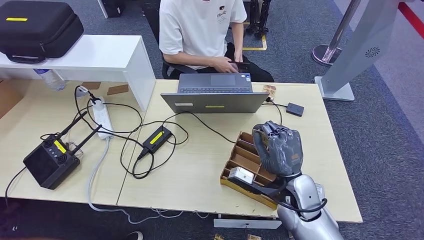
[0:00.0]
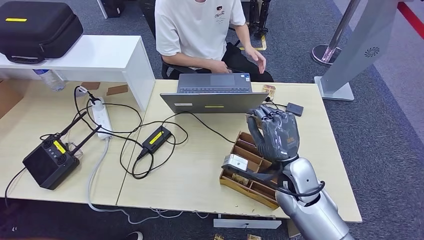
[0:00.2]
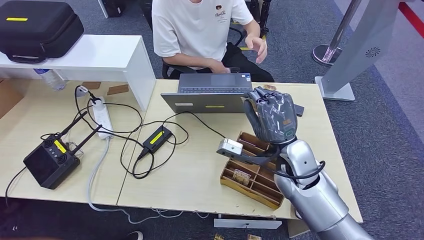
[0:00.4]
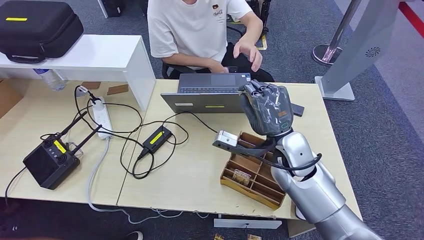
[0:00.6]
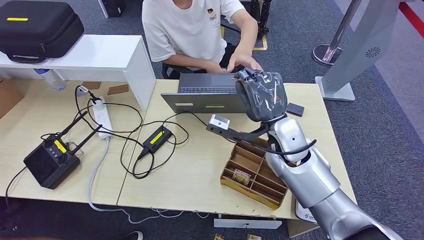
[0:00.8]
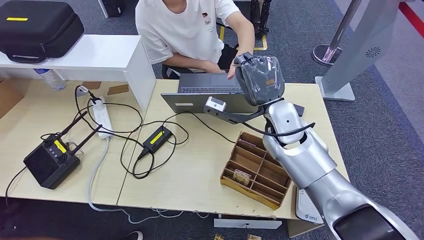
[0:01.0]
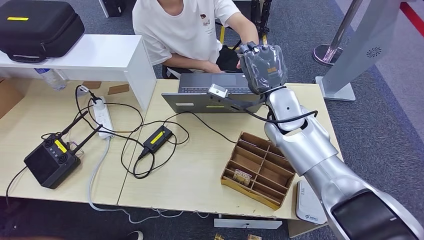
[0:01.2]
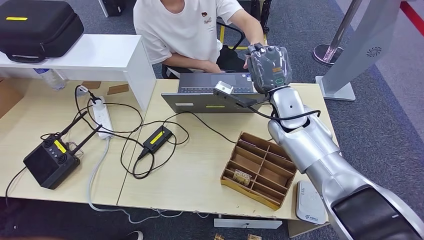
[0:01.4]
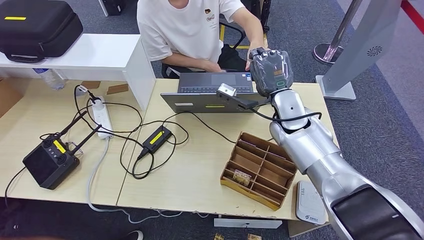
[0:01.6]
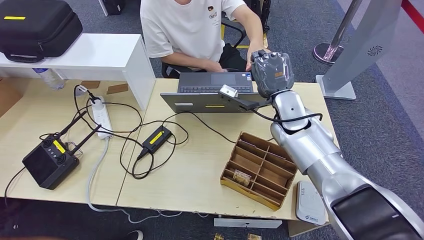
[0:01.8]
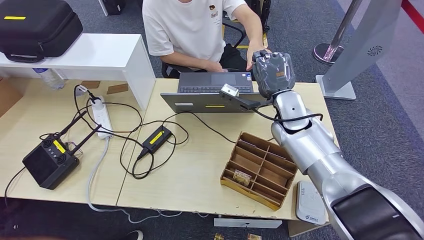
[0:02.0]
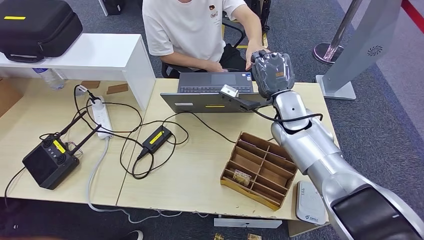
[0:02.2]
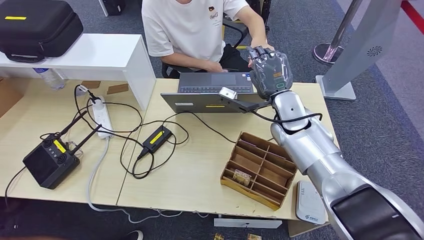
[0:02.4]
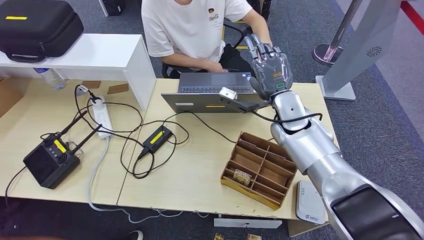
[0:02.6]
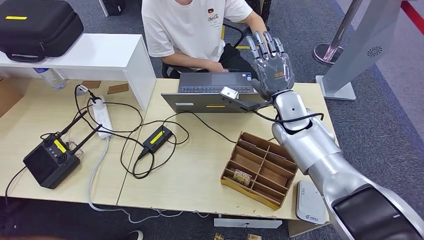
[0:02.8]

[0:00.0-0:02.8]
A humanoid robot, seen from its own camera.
Step, 0:00.0 to 0:02.8: Hand the room key to the person.
0:00.0 to 0:01.4: The right hand goes approximately 20 cm forward and upward.
0:01.4 to 0:02.8: The hands make only small movements.

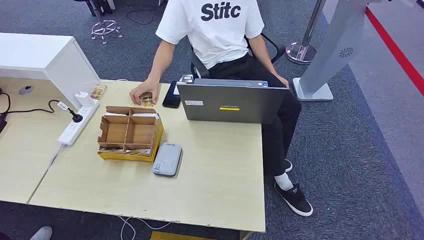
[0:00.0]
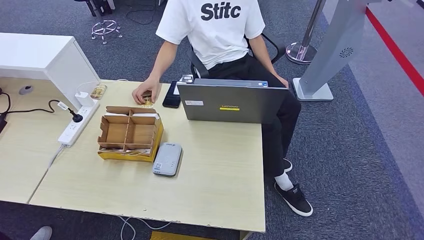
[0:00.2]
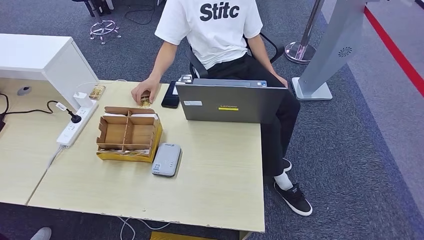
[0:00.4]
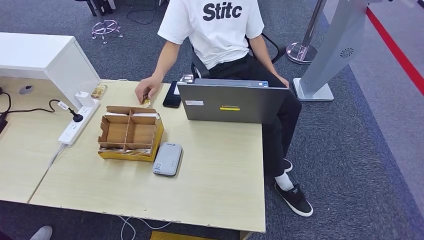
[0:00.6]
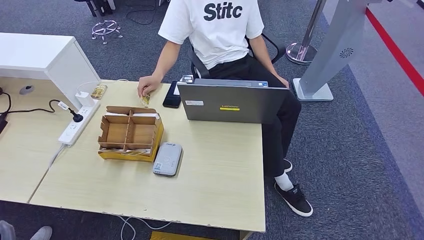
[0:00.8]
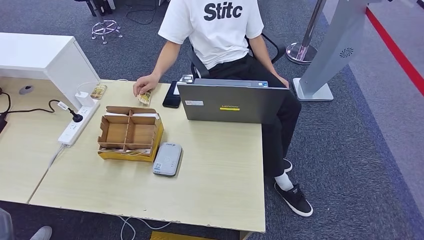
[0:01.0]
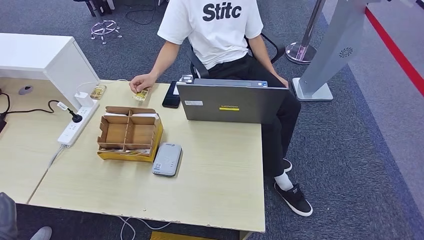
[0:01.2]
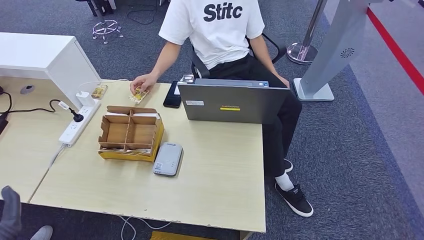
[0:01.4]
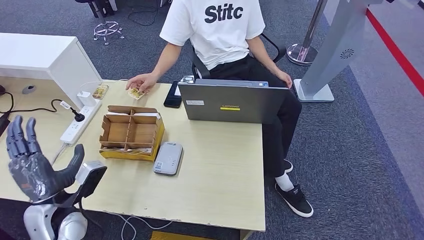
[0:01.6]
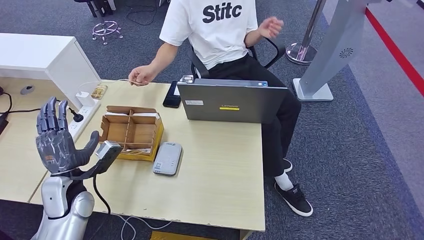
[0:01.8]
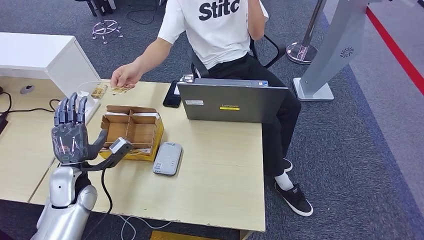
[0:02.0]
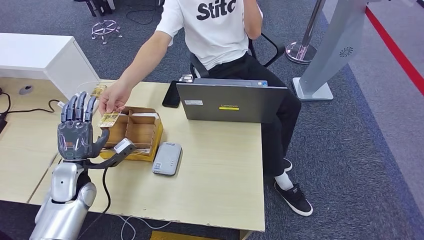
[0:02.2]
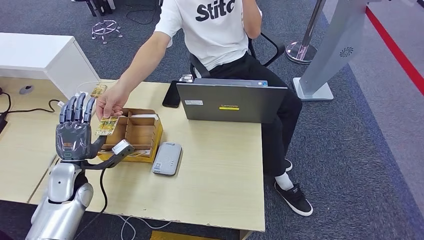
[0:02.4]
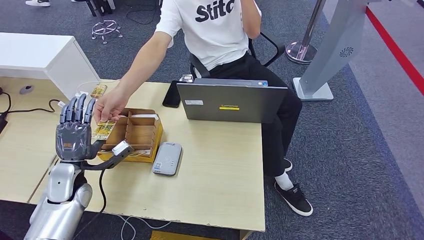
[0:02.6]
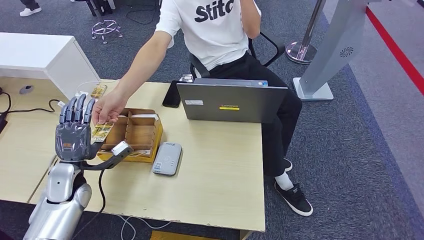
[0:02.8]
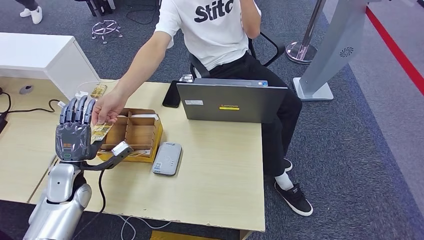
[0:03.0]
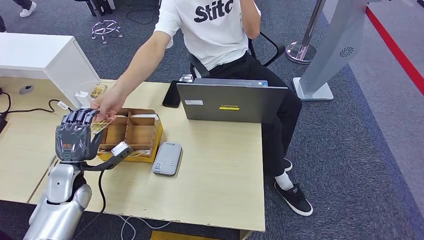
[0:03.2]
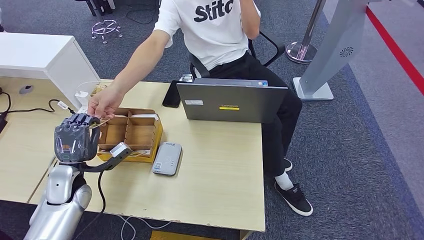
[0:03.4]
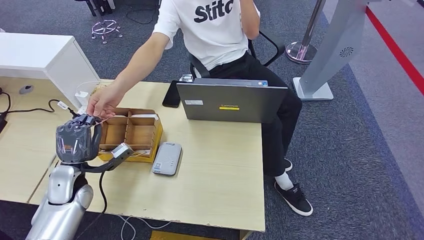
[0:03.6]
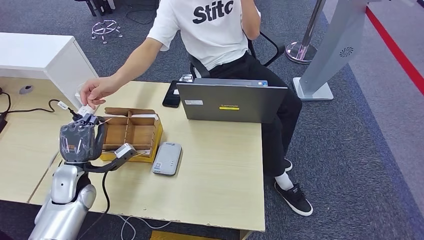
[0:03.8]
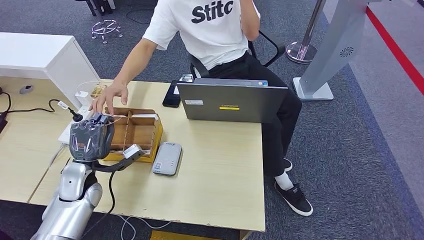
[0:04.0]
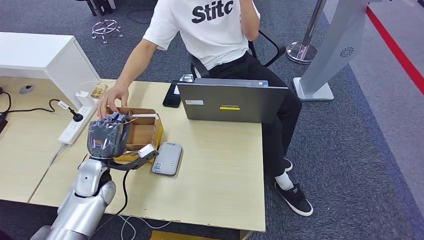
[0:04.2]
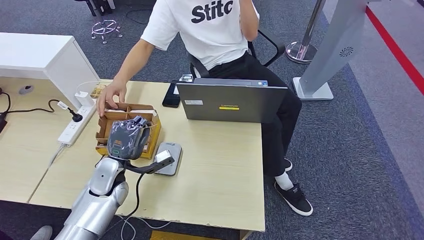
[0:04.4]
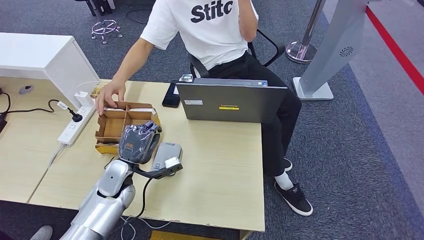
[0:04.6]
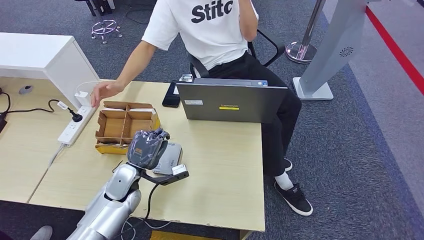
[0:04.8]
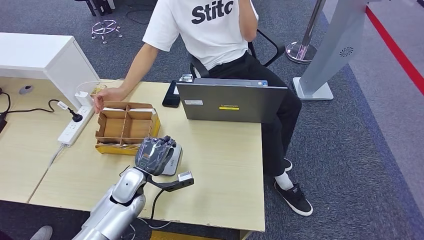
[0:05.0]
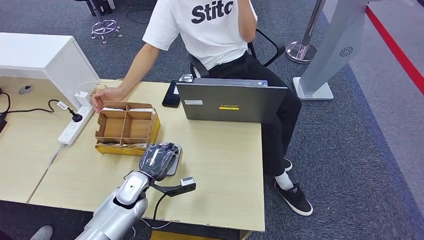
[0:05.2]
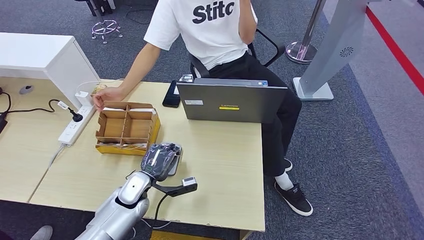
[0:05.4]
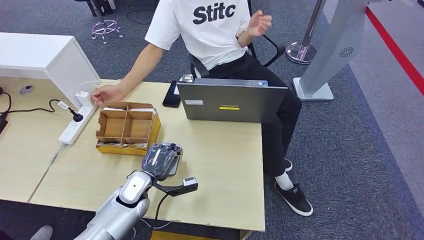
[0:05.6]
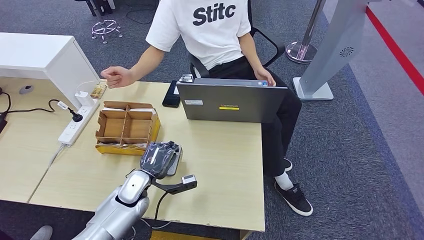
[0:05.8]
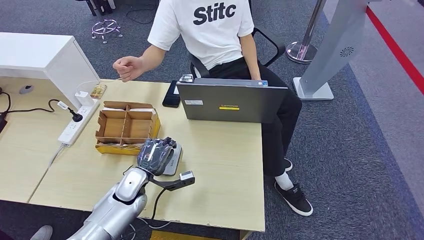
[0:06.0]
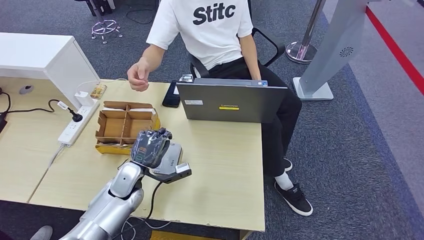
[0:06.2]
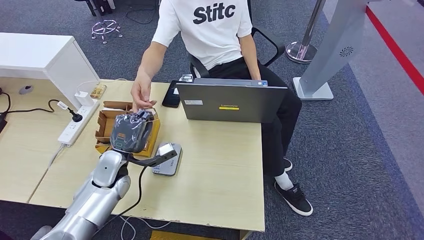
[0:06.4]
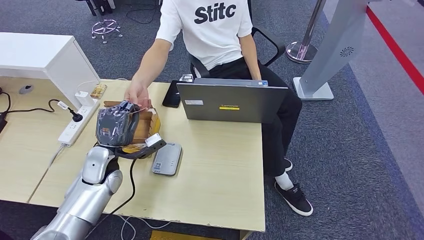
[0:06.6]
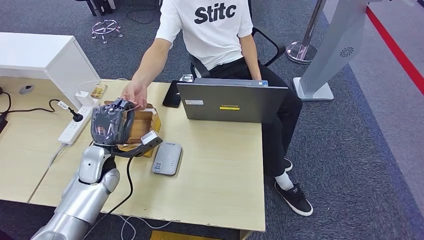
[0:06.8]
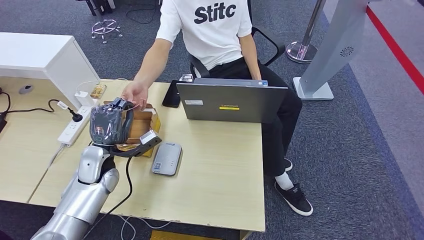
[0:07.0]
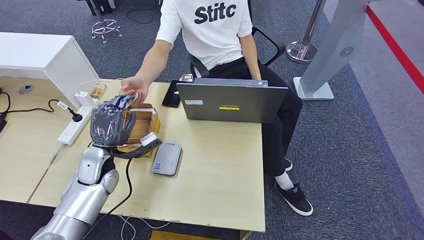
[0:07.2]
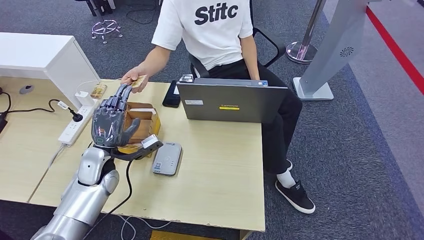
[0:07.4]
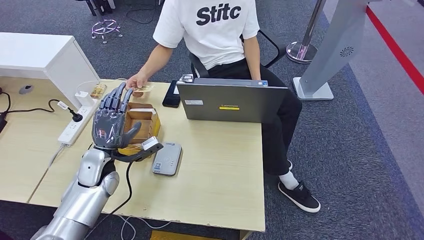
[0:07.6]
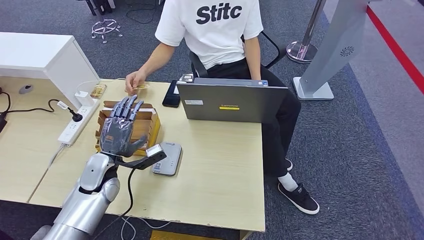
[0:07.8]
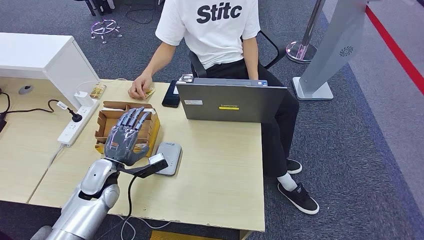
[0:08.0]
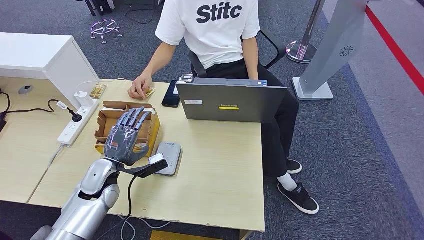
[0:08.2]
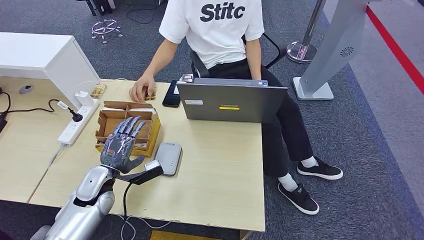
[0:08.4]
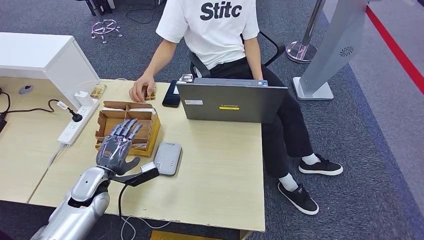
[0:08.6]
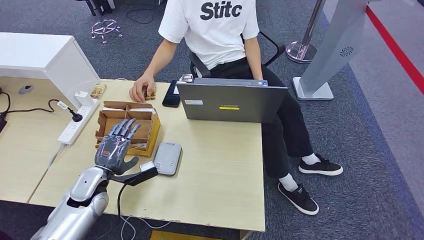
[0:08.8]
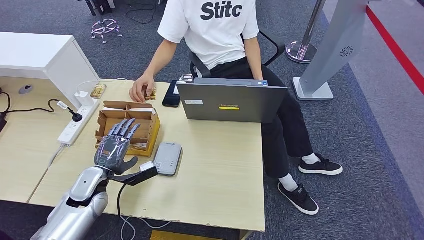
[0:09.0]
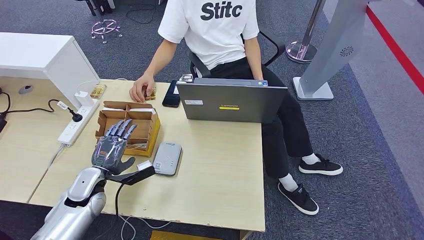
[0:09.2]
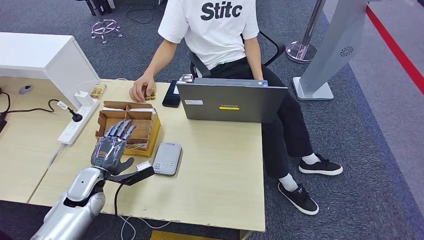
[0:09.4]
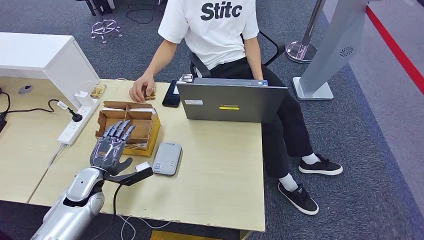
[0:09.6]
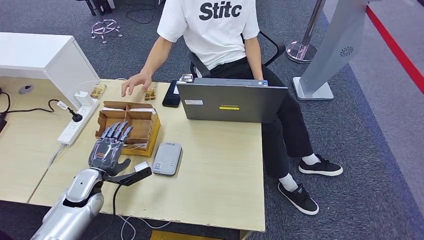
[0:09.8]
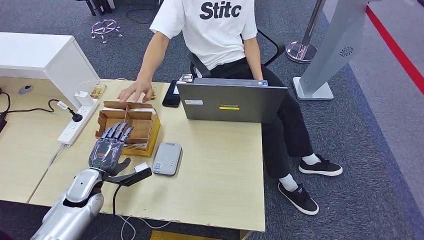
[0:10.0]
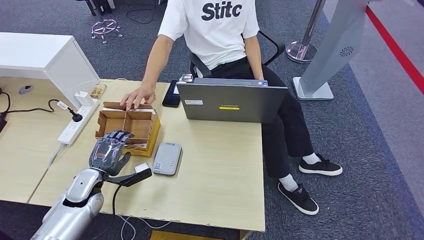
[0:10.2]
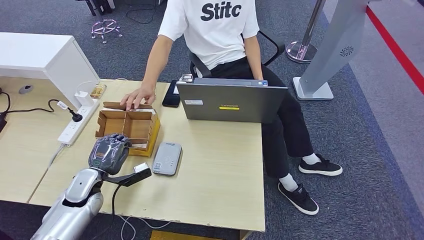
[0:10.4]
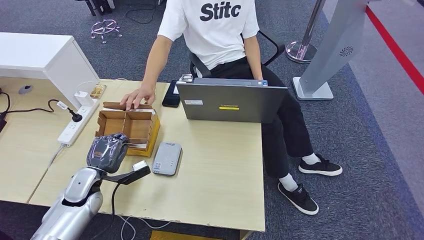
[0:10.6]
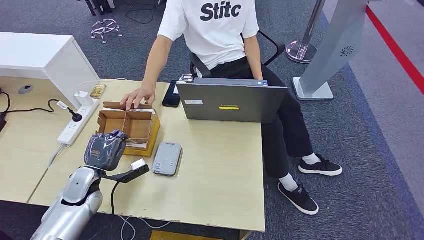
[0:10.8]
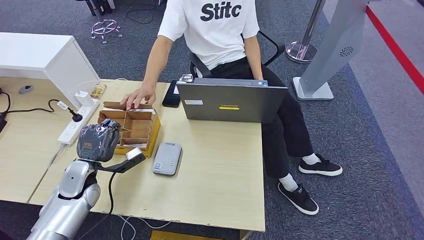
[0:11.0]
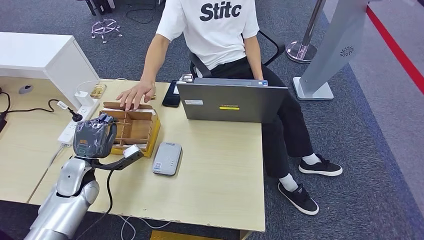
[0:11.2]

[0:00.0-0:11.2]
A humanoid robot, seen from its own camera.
Step, 0:00.0 to 0:04.0: Take the ID card from the person's hand.
Step, 0:04.2 to 0:05.6: Place the ID card on the card reader.
Step, 0:06.0 to 0:08.0: Hand the ID card to the person.
0:03.2 to 0:04.8: The left hand is displaced to the right by some 15 cm.
0:04.8 to 0:06.4: The hands stay close to where they were, moving slightly.
0:06.4 to 0:08.0: The hands move only a little.
0:08.0 to 0:09.6: The left hand ends up roughly 5 cm from where it was.

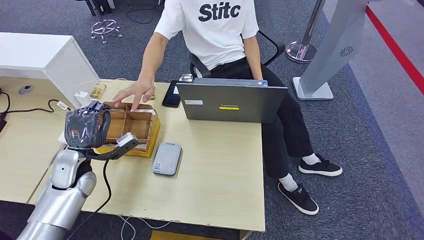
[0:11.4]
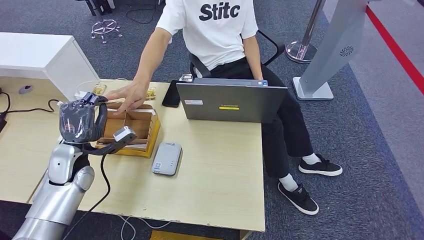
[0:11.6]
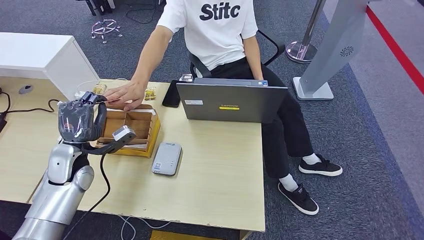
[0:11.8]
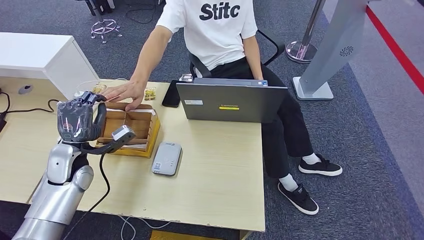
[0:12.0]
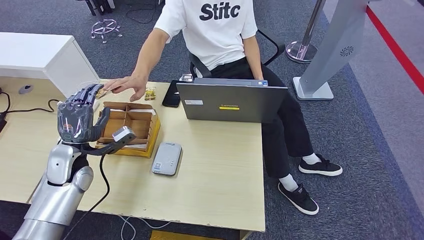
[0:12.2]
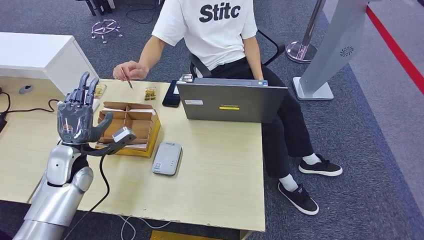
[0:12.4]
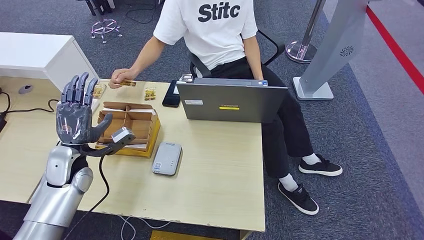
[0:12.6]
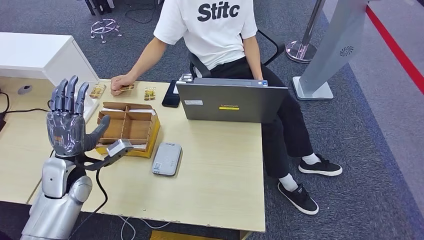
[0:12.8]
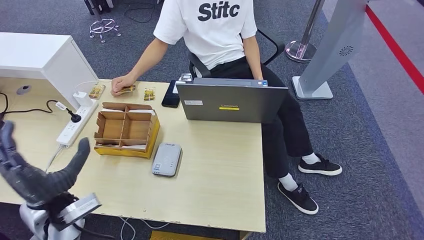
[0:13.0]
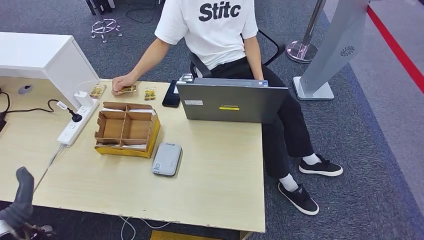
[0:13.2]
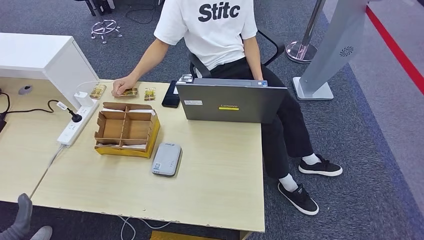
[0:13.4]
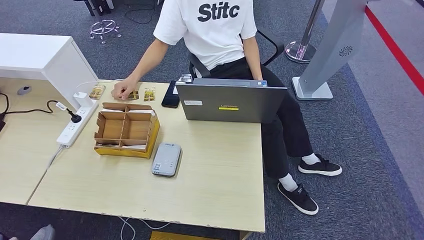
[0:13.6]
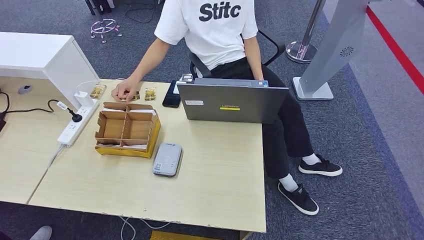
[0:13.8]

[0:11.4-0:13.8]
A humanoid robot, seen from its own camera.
Step, 0:12.0 to 0:13.8: Hand the room key to the person.
0:11.4 to 0:12.6: The hands make only small movements.
0:12.6 to 0:13.8: The left hand heads backward and downward, covering about 40 cm.
